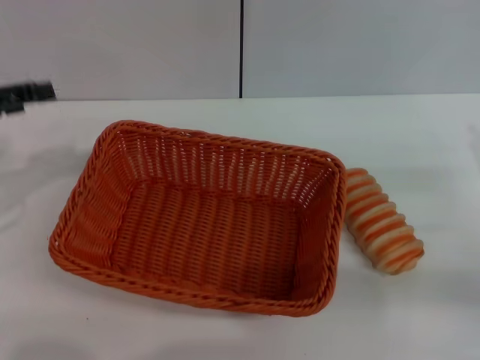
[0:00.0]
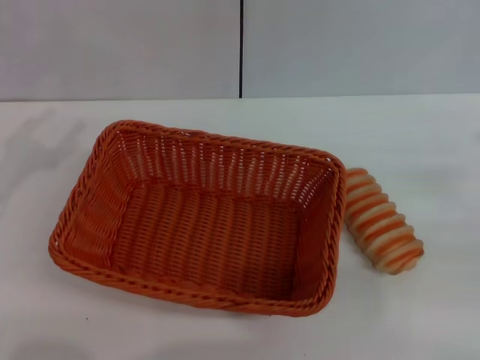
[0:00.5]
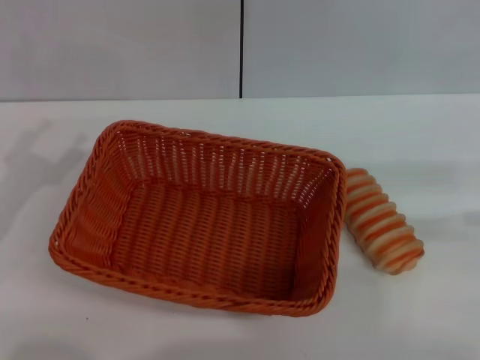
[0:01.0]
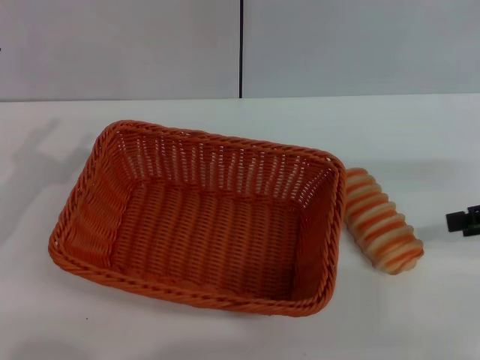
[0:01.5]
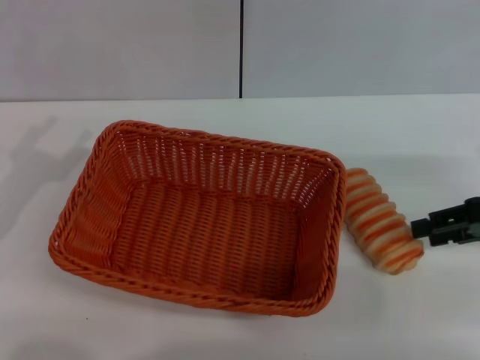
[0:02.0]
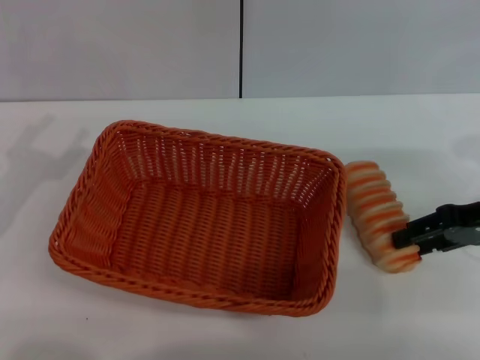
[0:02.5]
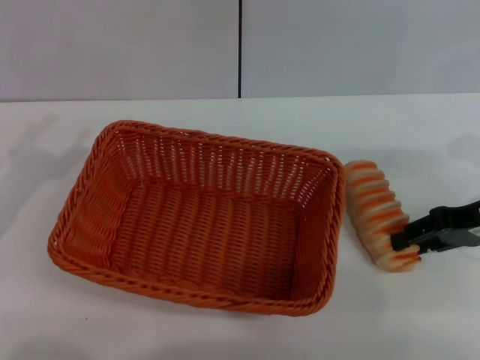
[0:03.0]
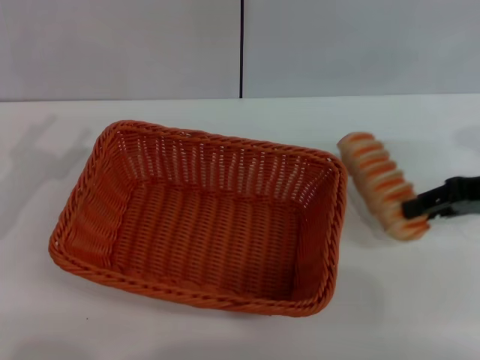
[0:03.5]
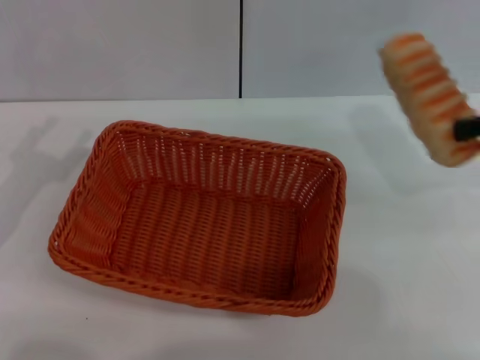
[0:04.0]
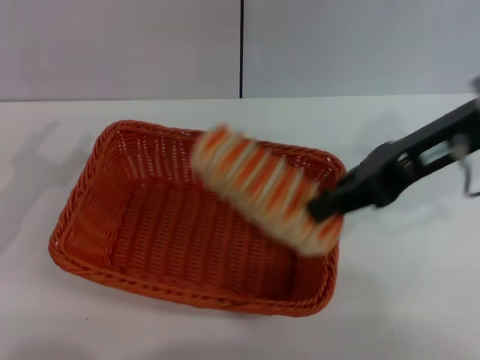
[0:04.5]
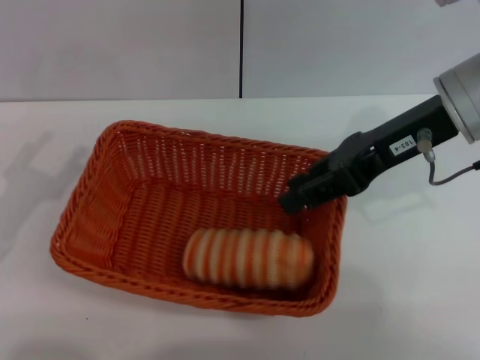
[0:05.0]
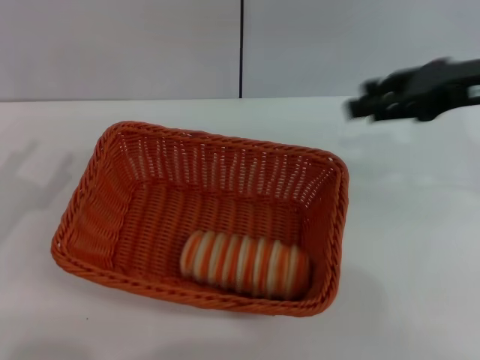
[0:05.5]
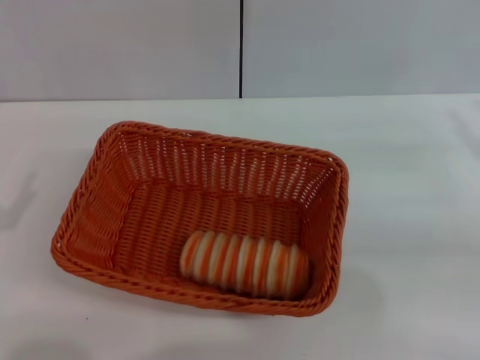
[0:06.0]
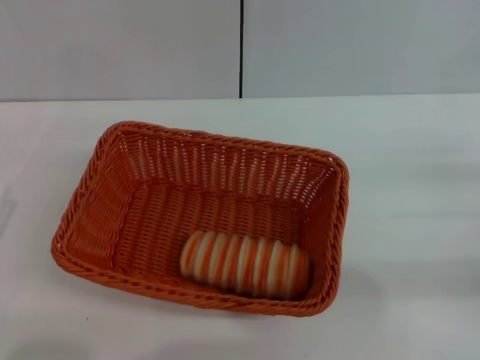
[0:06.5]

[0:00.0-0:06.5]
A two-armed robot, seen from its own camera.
Step, 0:00.0 to 0:03.5: Pick up the long bread with the right gripper.
Step, 0:04.0 to 0:05.0: Place the long bread into the light basket with the right gripper.
0:00.0 to 0:02.0: The right gripper travels forward by about 10 cm. Meanwhile the left gripper shifts roughly 10 cm downward.
0:02.0 to 0:04.5: The right gripper is displaced to the left and upward by approximately 20 cm, and closes.
0:04.5 to 0:06.5: The left gripper moves backward, approximately 10 cm, while the right gripper is displaced to the right, downward and backward by some 25 cm, and opens.
